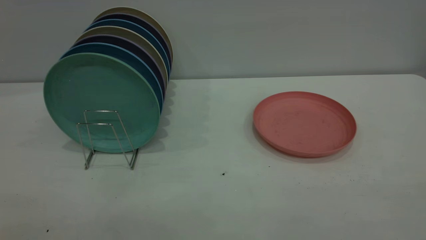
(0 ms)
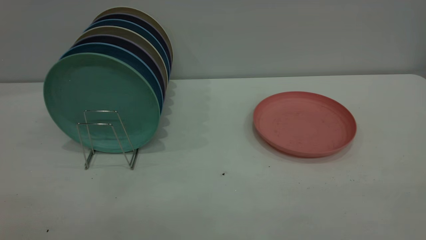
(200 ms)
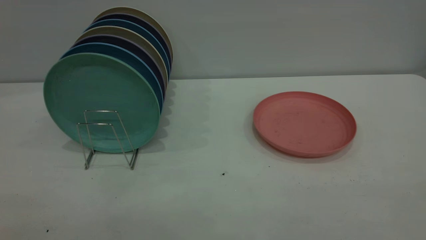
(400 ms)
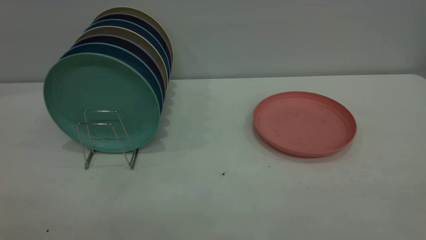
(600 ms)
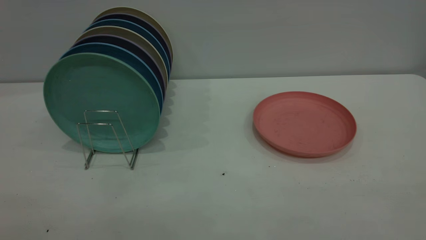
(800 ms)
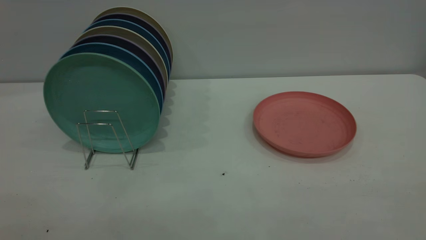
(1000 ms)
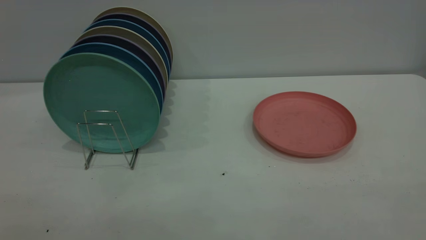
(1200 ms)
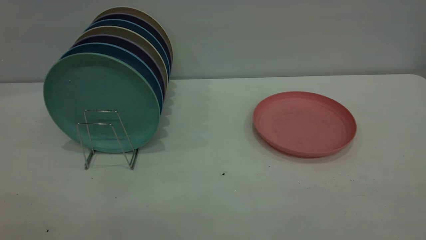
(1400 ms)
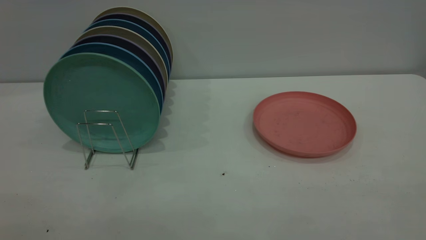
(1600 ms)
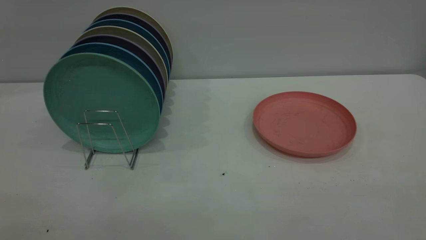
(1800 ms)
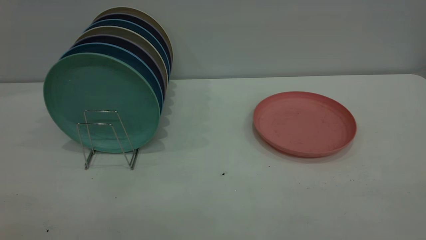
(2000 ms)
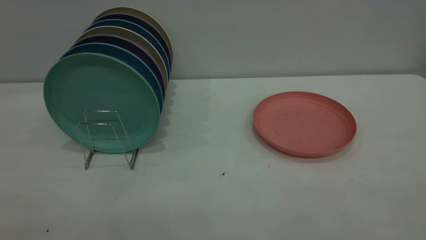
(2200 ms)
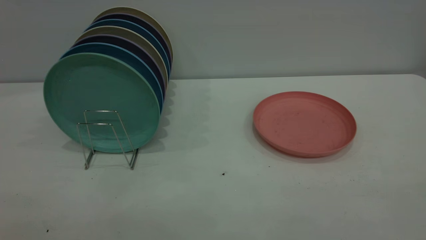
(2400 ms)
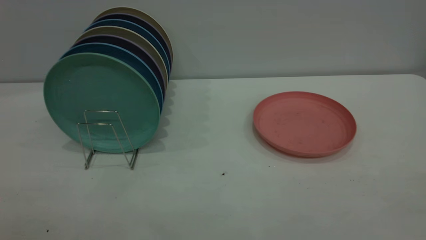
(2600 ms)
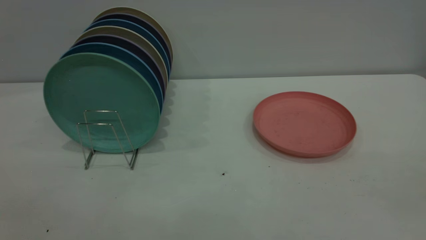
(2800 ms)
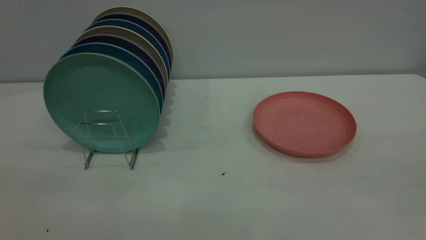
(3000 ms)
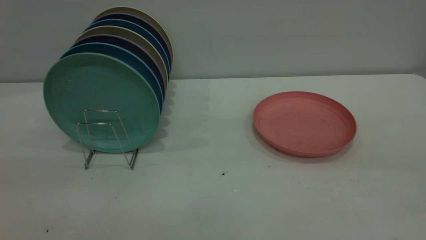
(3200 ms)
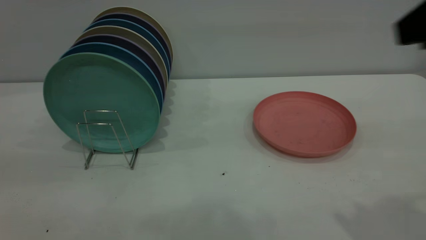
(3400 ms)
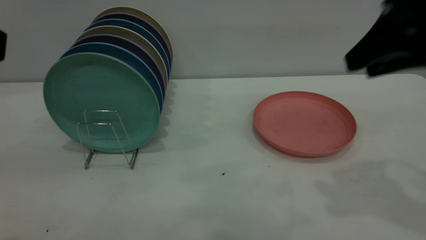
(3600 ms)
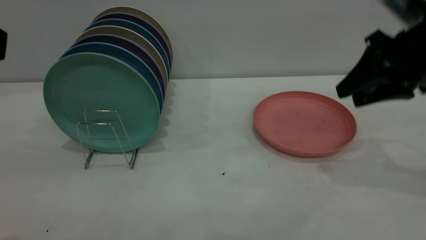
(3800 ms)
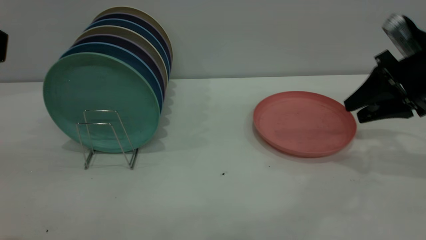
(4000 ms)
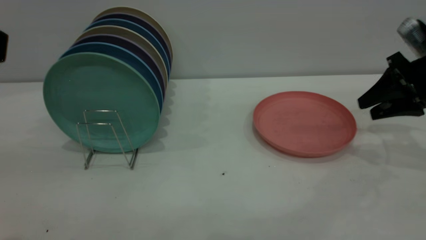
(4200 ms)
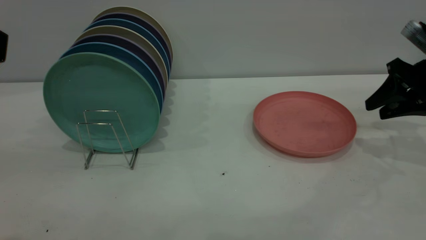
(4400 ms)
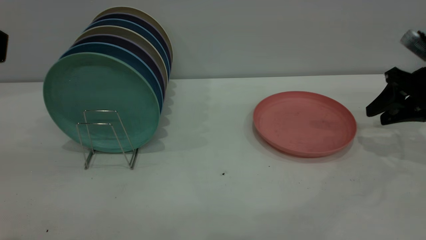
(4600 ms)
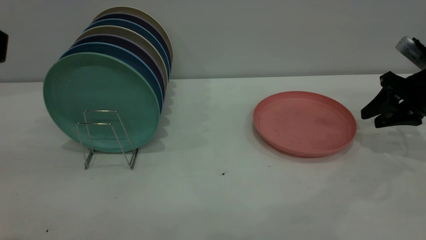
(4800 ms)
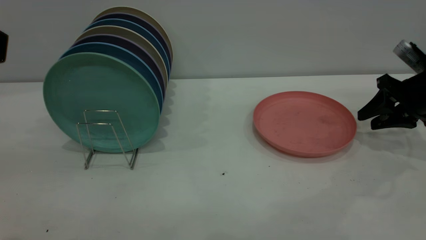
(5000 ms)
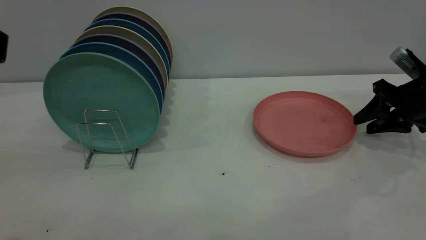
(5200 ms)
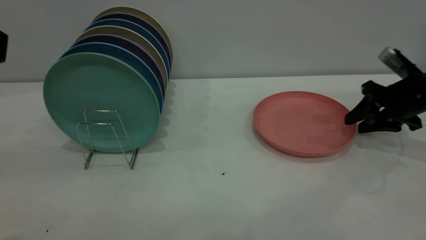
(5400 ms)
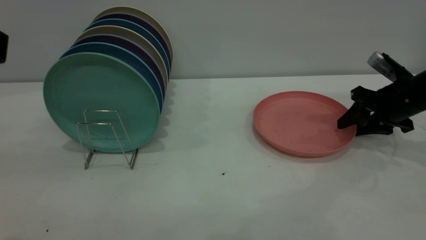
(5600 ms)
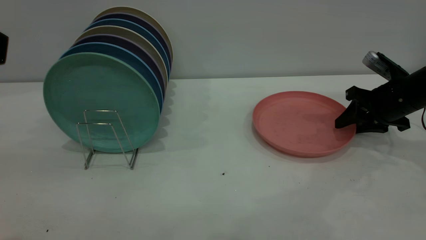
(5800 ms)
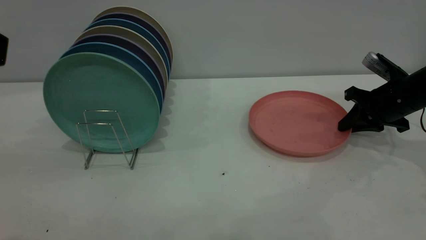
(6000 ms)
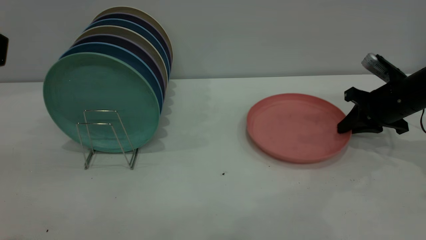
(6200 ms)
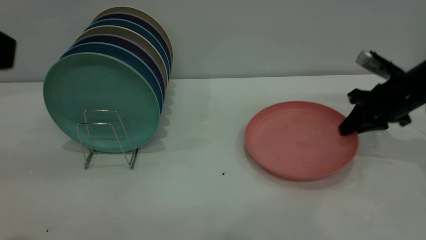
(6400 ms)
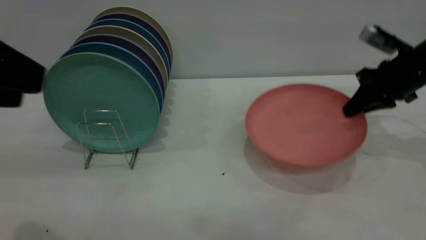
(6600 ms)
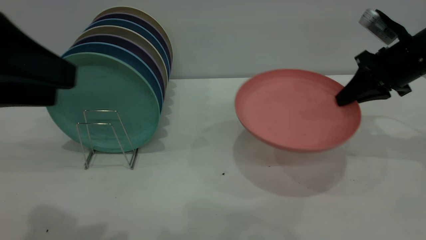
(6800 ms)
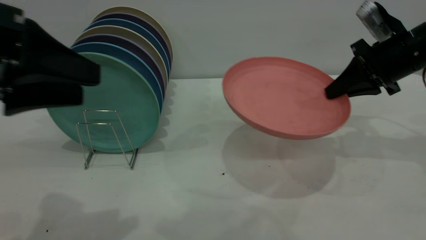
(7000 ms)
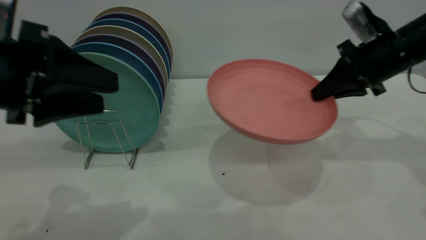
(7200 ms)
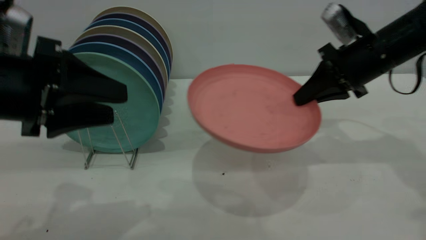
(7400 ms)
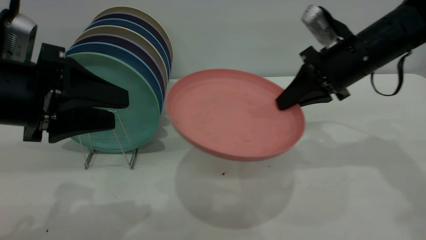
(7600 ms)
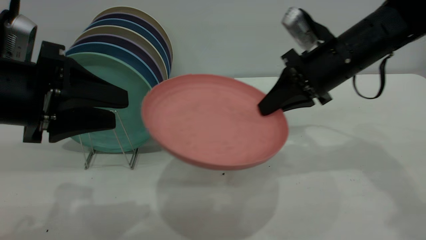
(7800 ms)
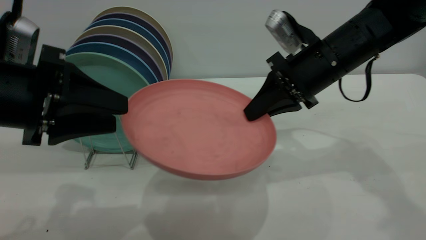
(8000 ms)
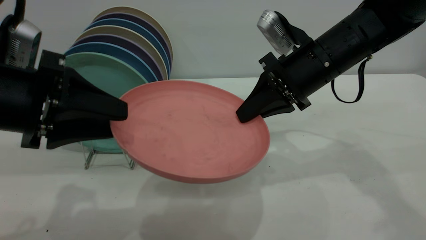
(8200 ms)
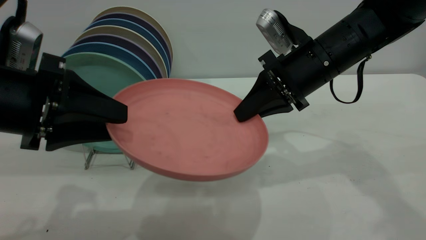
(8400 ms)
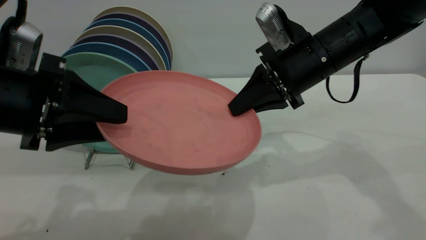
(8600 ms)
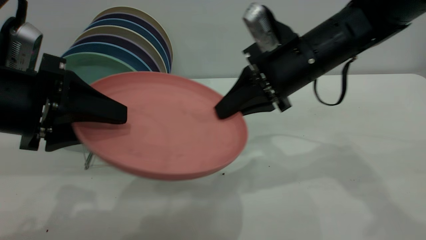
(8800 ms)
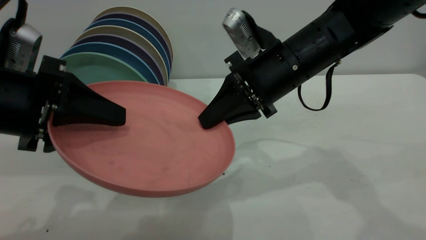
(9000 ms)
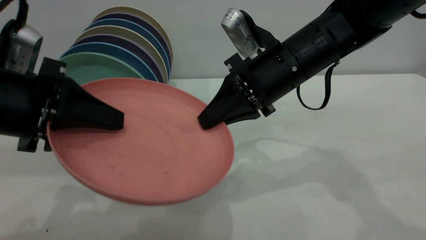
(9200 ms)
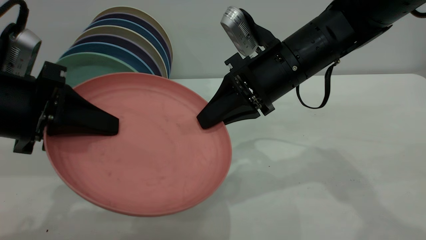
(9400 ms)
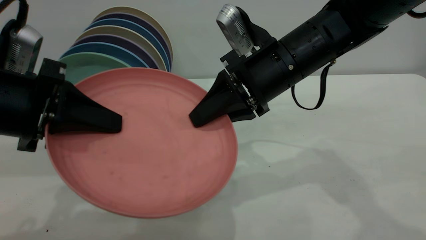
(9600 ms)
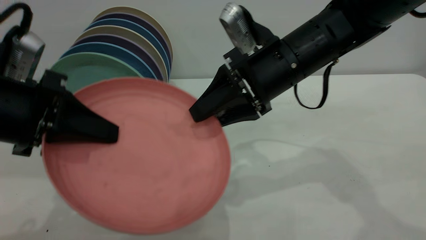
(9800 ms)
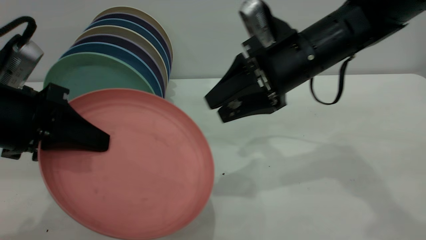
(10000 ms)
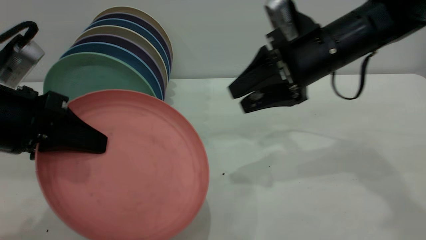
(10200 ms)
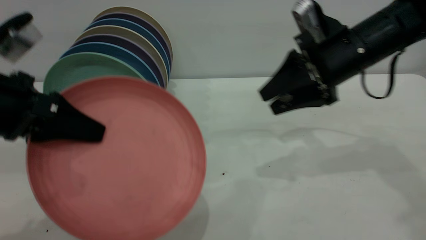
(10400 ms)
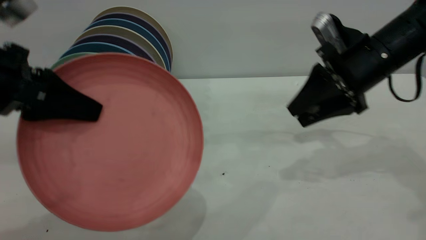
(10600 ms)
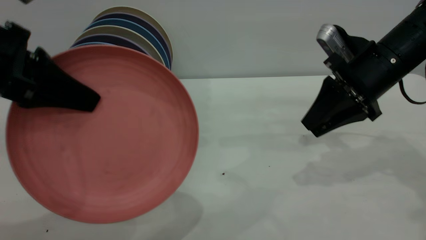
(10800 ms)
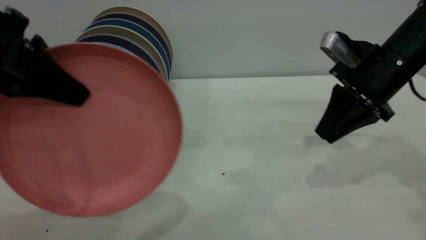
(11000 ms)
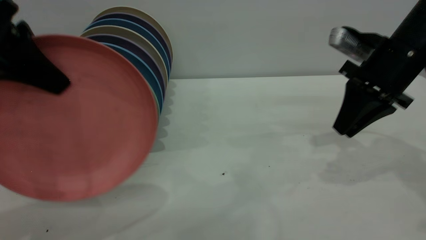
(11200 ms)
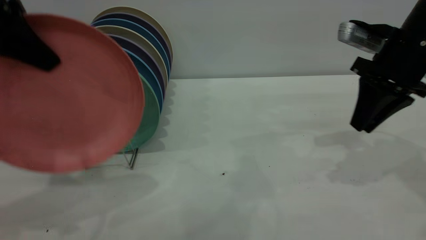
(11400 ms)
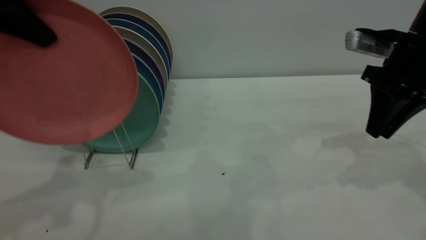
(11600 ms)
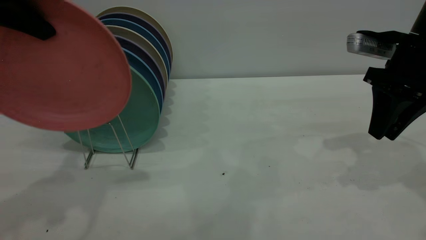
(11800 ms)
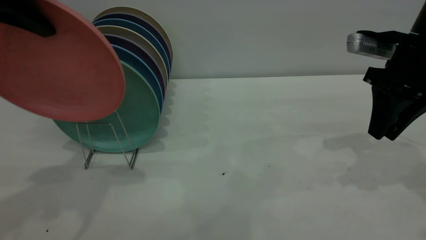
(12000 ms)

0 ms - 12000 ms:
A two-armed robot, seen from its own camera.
Task of the whole recording: the right gripper grasp the pink plate, the right gripper pass the pink plate to the left gripper, and the left gripper place the pink plate on the plate rack.
Step, 0 ms - 6800 ms: Pick up the plate with the right gripper.
Step, 7000 ms - 11200 ms: Pass the plate from the right gripper to the left gripper.
0 ms - 1600 ms: The two grippers keep their place.
3000 ms - 4400 ms: The right gripper goes approximately 40 cm forward and downward.
4400 ms - 6000 ms: The right gripper moves downward, roughly 5 cm, and closes its fingers.
6000 ms - 7600 ms: The right gripper shifts approximately 15 cm to the left and upward; the left gripper travels downward and forward by approximately 15 cm.
7600 ms - 9000 ms: The right gripper moves to the left, approximately 10 cm.
9000 ms - 10400 ms: The left gripper closes its fingers; the right gripper goes some 10 cm to the right, and opens its fingers.
10400 ms - 12000 ms: The right gripper shifts about 5 cm to the right, while the left gripper moves upward and forward, approximately 15 cm.

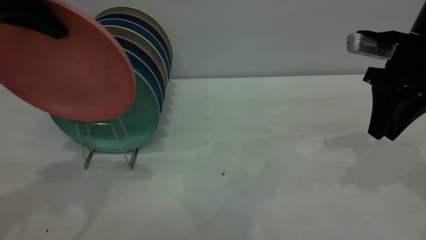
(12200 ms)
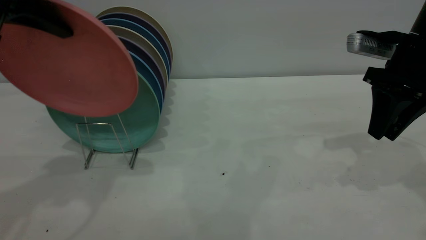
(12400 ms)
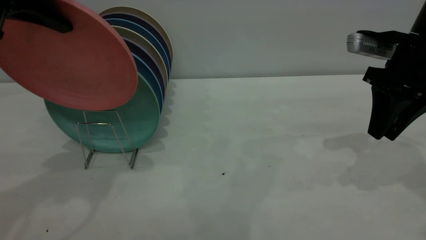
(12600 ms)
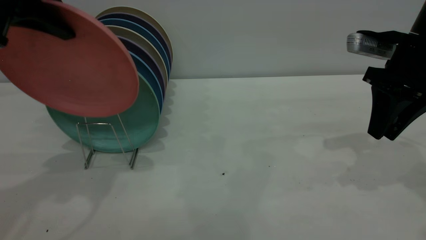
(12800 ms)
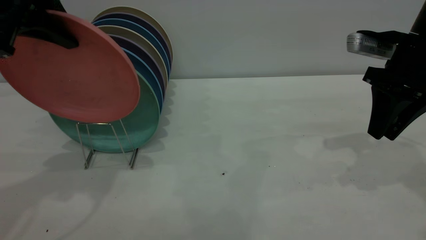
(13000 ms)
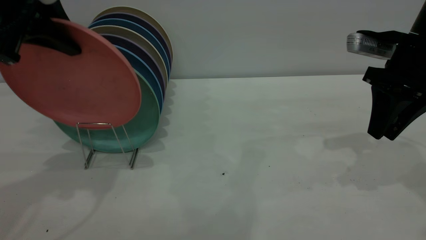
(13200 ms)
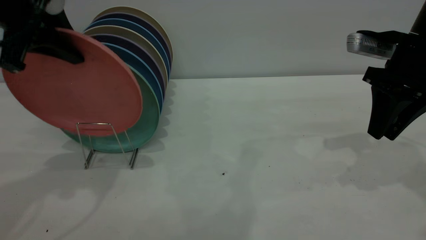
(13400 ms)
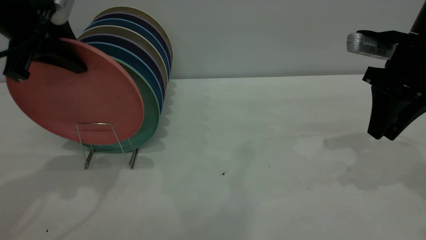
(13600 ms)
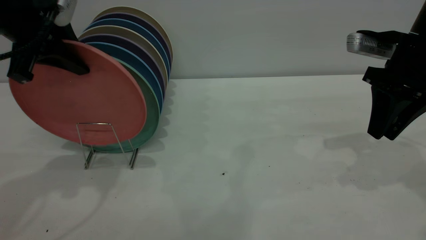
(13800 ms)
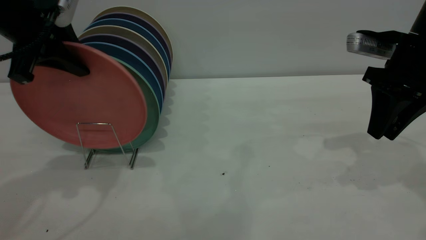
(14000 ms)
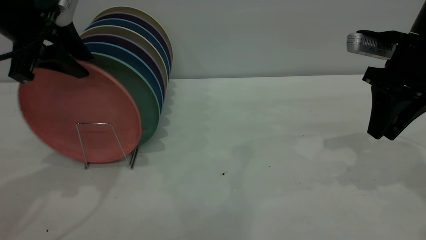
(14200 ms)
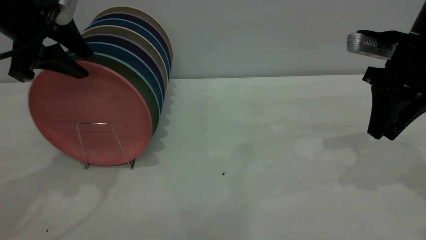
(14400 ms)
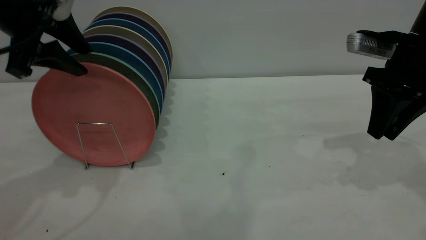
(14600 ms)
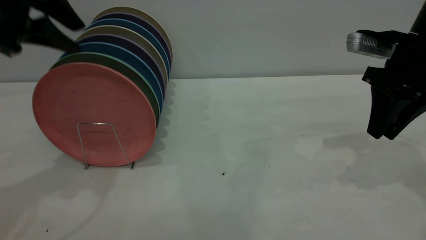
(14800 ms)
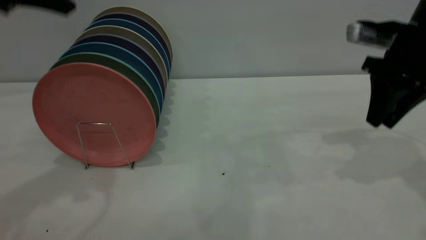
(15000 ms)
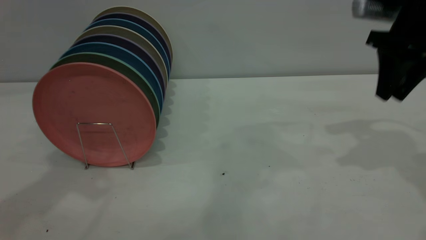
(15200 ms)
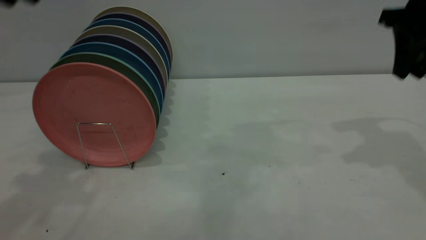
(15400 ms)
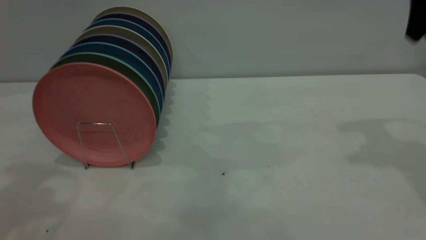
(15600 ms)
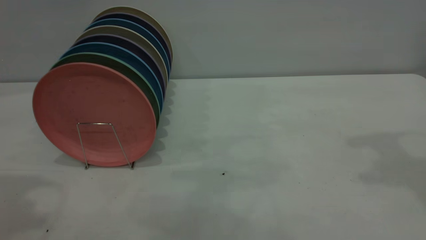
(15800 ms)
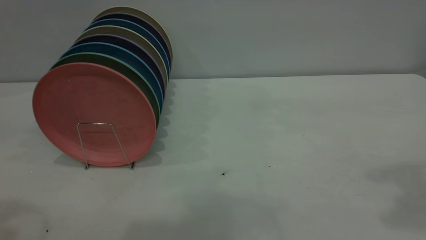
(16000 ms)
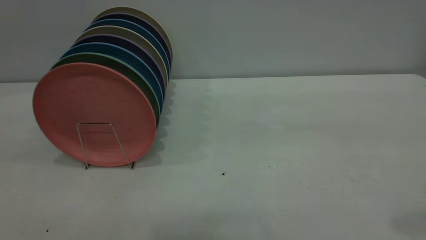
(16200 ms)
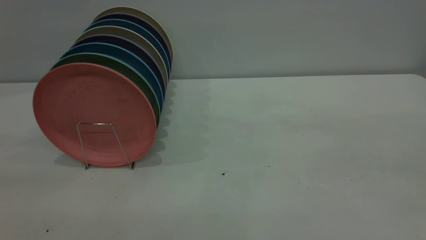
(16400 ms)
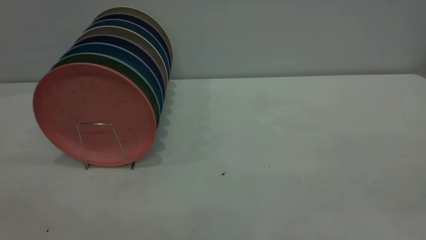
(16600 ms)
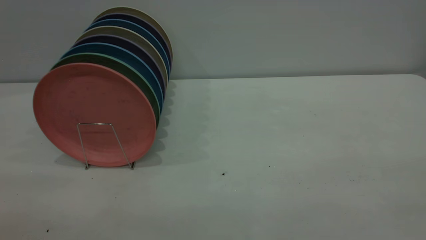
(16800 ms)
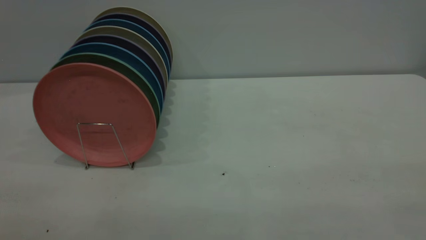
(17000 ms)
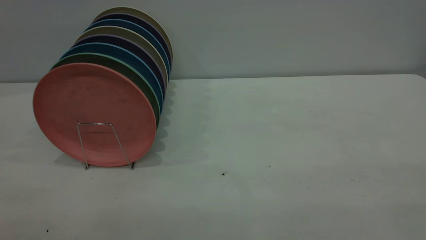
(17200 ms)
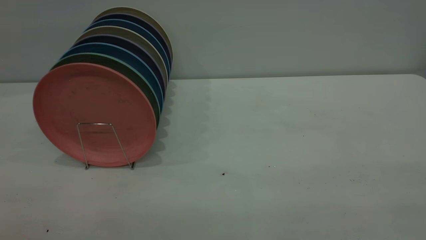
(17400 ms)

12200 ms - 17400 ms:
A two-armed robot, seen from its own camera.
Task of the whole recording: the right gripper grasp the pink plate, the right gripper pass the pink plate to the left gripper, and the left gripper place the pink plate on the plate rack.
Step, 12200 ms - 14800 ms: Place the plate on the shelf.
12200 ms - 14000 ms: The left gripper goes some 5 cm downward.
14000 ms - 15600 ms: The left gripper moves upward and backward, roughly 15 cm, and opens up; the right gripper heads upward, covering roughly 15 cm.
15600 ms - 17400 ms: The right gripper heads backward, covering about 35 cm.
